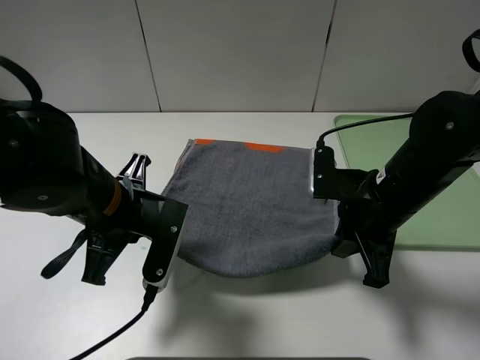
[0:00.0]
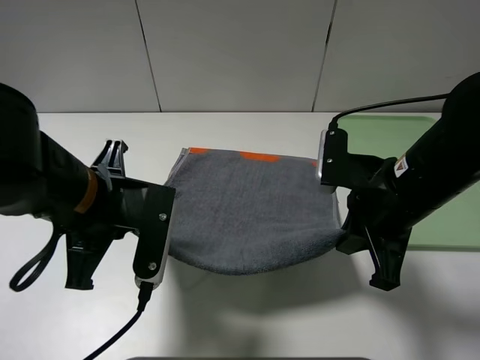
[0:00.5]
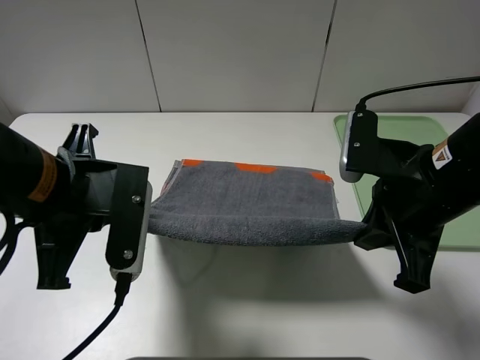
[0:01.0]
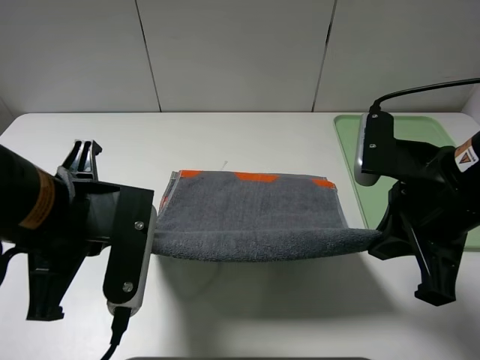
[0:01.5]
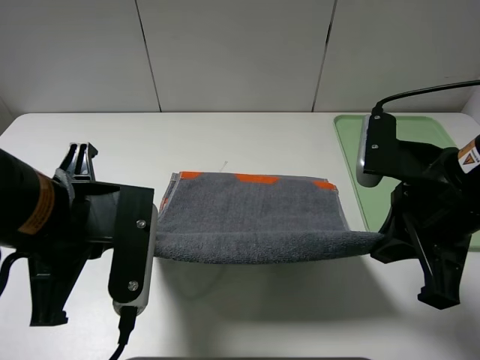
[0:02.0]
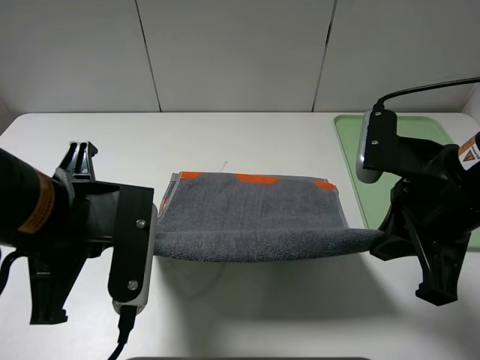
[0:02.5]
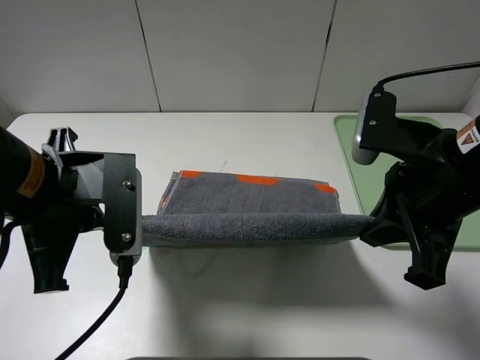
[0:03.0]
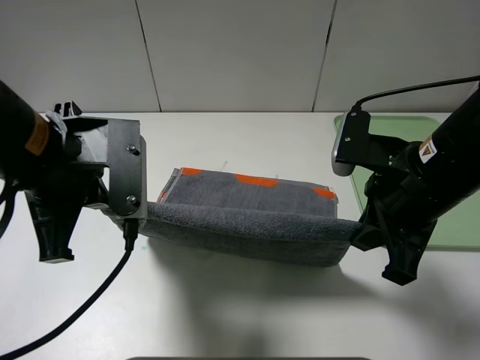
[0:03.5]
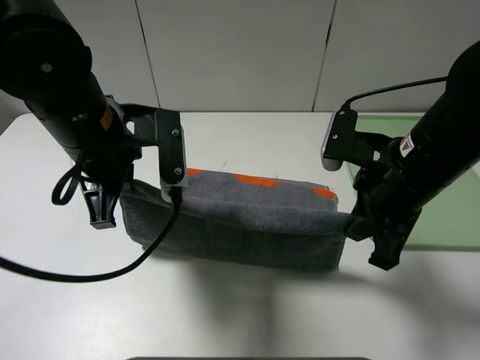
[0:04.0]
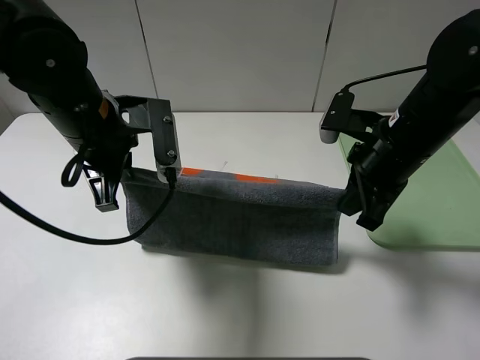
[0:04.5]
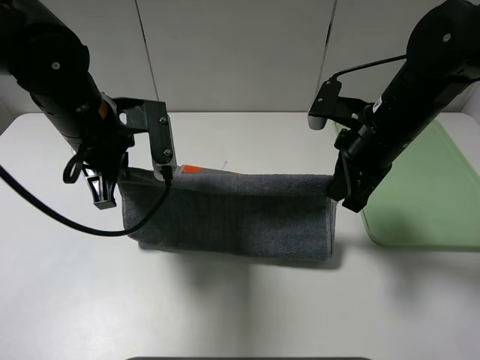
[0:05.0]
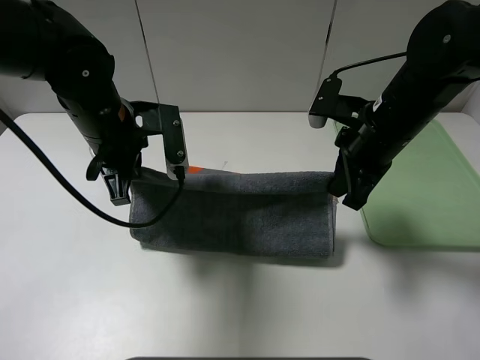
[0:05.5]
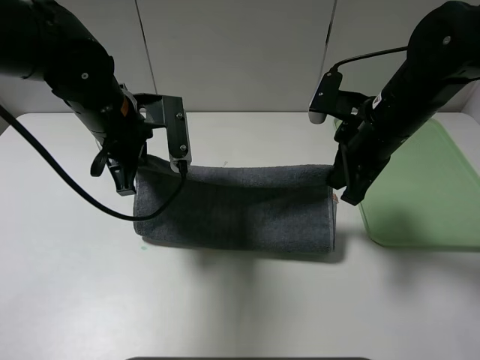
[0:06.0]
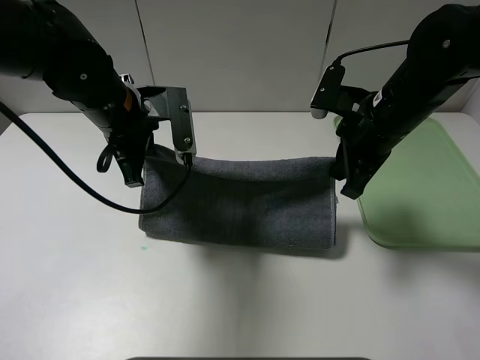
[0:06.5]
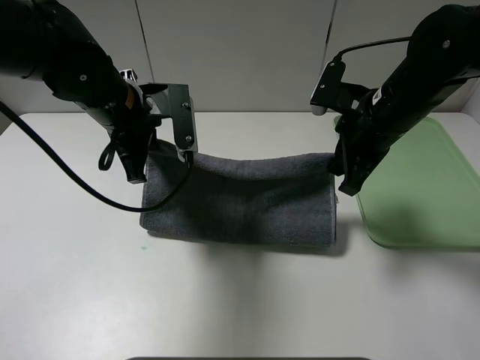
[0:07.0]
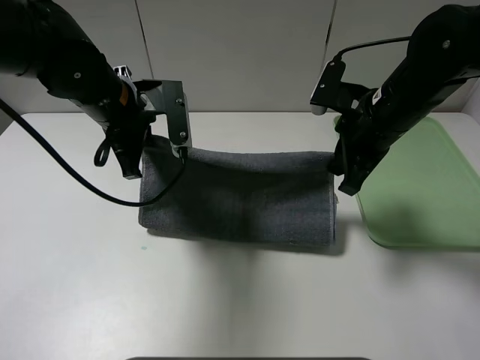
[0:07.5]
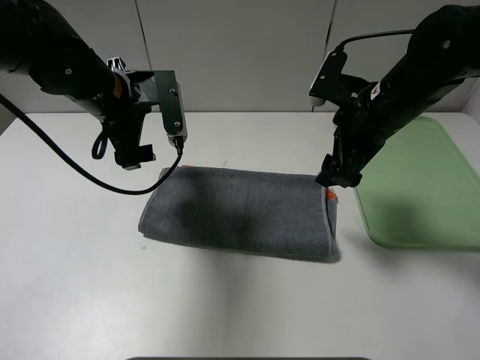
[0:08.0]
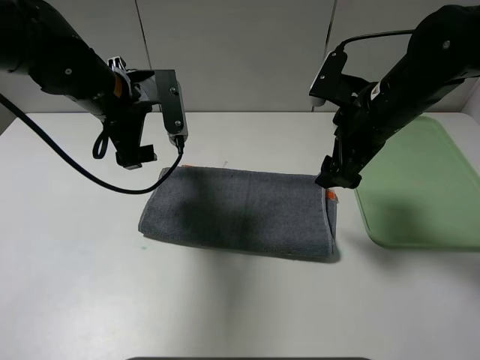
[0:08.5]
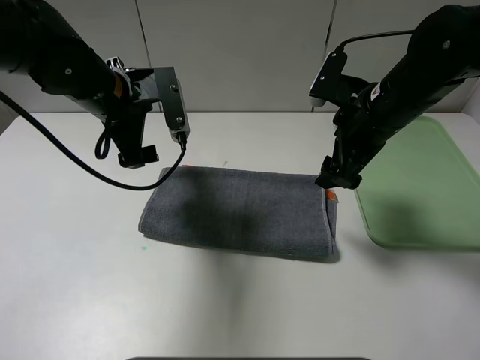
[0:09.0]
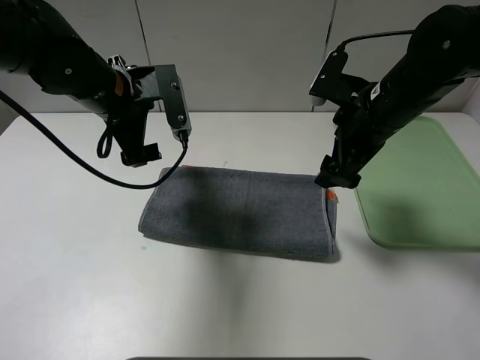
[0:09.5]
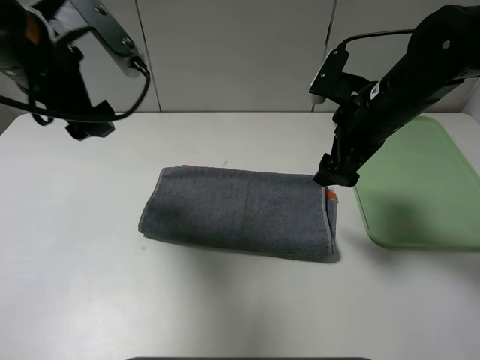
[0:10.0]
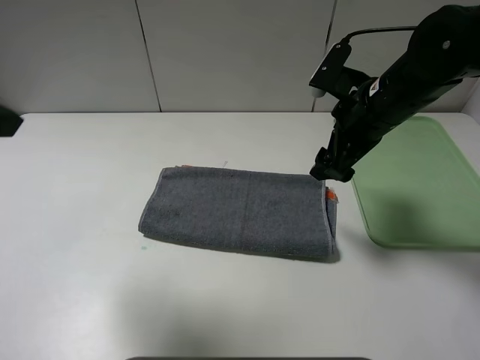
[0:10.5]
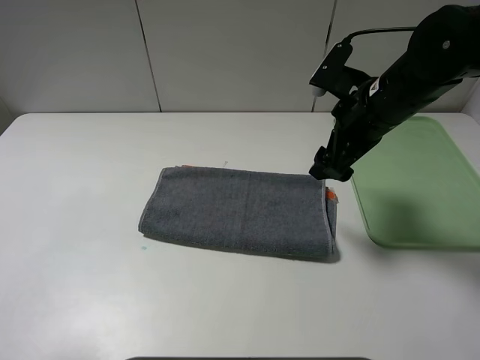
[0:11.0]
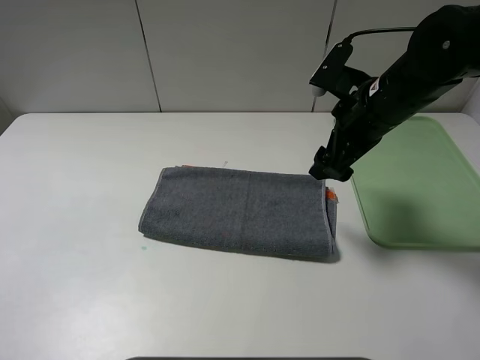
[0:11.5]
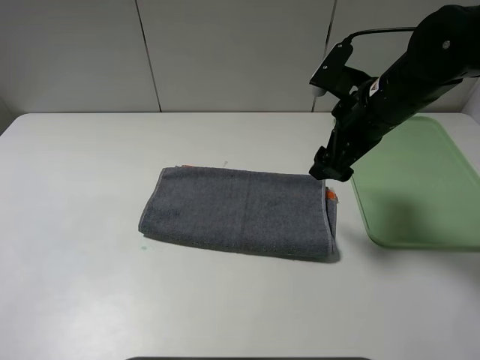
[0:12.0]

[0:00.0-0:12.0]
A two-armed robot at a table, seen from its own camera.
Step, 0:00.0 to 0:07.5: Fold the grey towel upwards.
0:00.0 to 0:02.0: The grippers both shift upward and backward by approximately 10 cm.
0:02.0 to 0:04.0: The right gripper is displaced forward by roughly 5 cm, while the left gripper goes approximately 10 cm forward.
0:04.0 to 0:06.0: Both grippers move forward, roughly 5 cm.
0:06.0 to 0:08.0: The right gripper opens its fingers. Meanwhile the left gripper opens up.
0:08.0 to 0:10.0: The left gripper goes about 10 cm upward and backward.
0:10.0 to 0:12.0: The left gripper shifts roughly 30 cm backward and to the left.

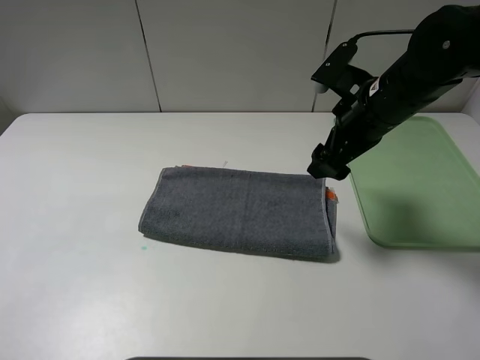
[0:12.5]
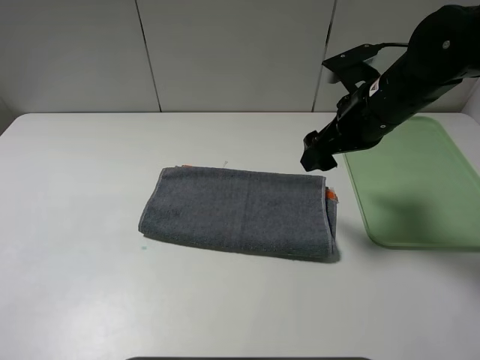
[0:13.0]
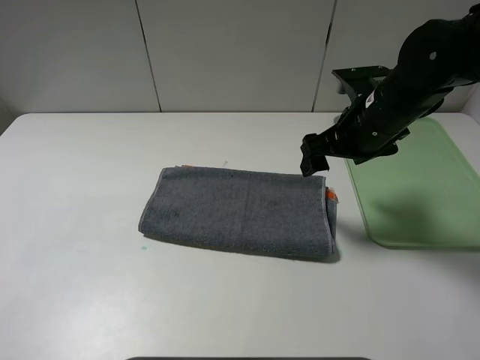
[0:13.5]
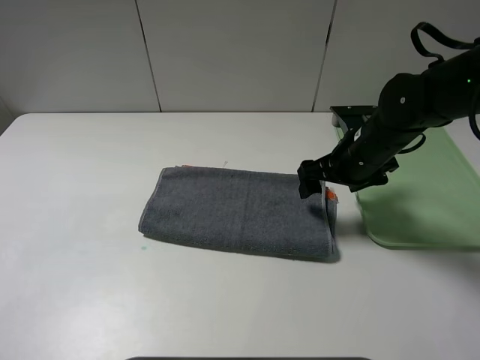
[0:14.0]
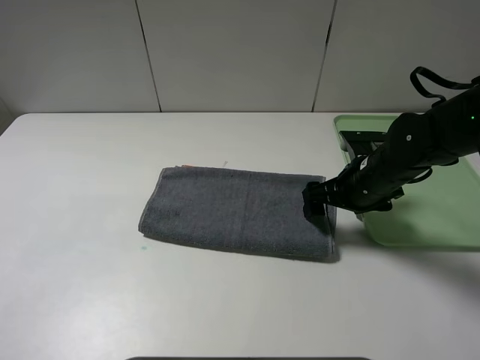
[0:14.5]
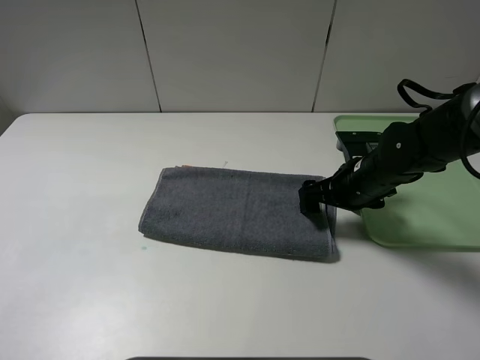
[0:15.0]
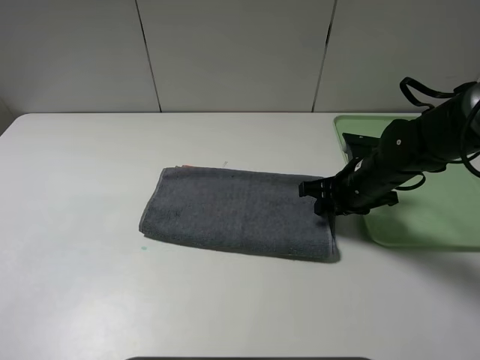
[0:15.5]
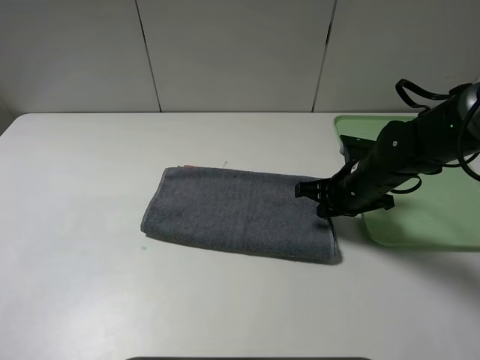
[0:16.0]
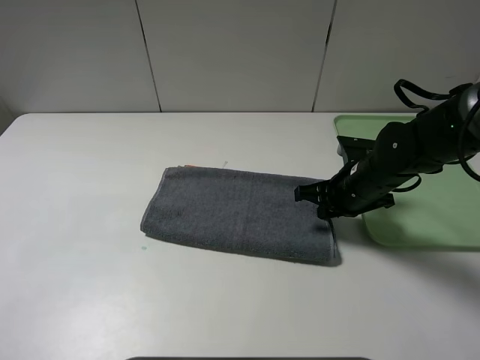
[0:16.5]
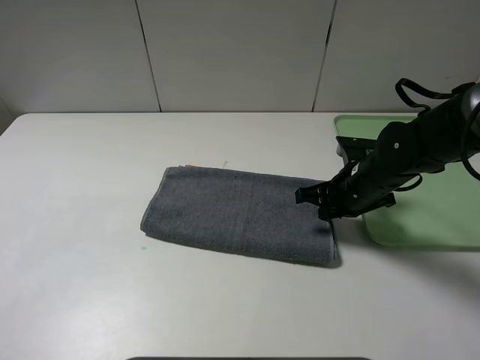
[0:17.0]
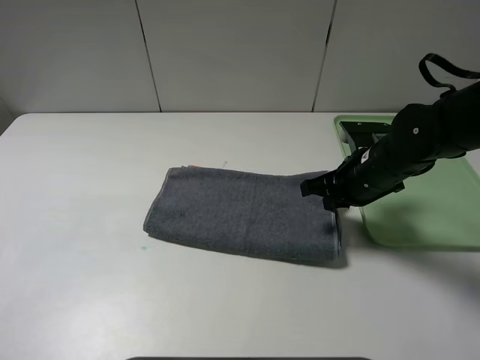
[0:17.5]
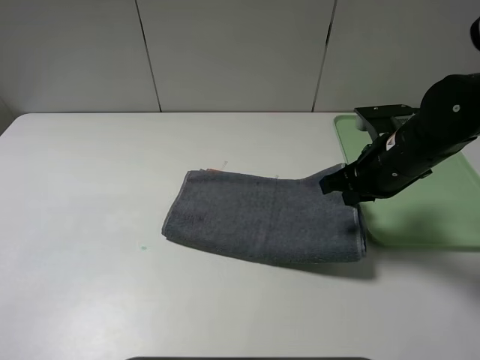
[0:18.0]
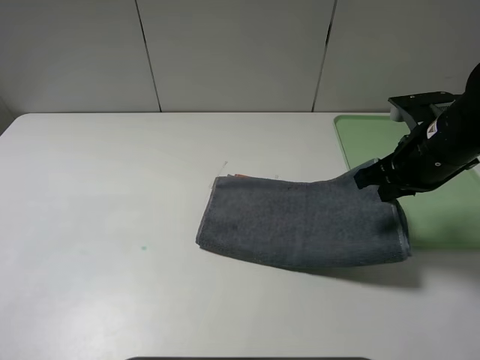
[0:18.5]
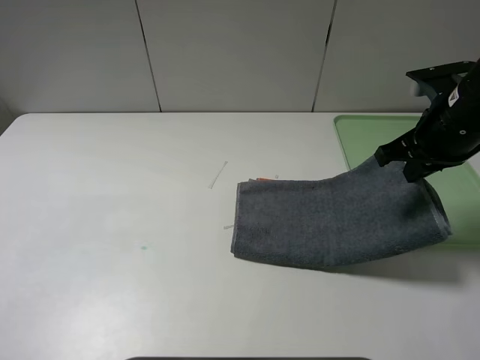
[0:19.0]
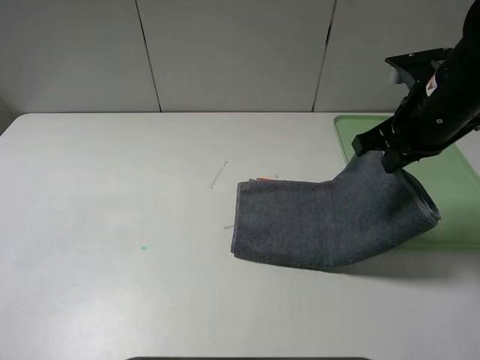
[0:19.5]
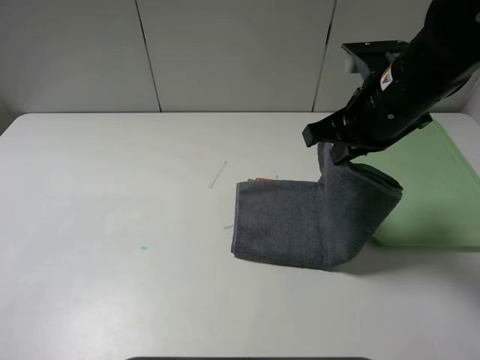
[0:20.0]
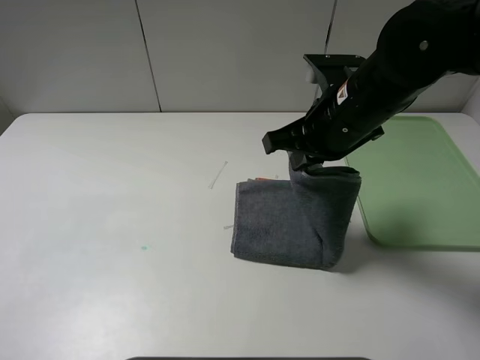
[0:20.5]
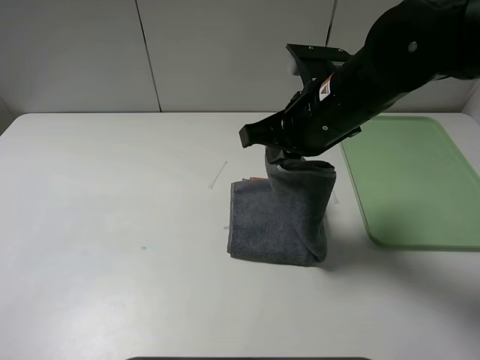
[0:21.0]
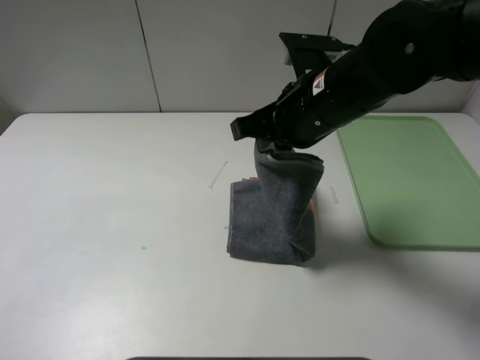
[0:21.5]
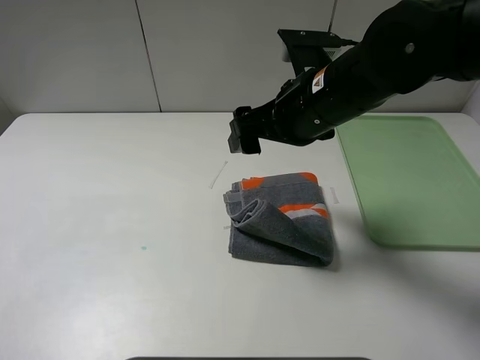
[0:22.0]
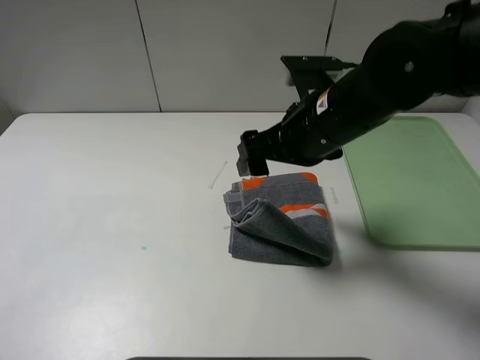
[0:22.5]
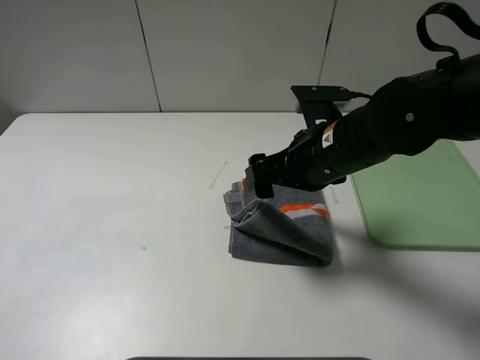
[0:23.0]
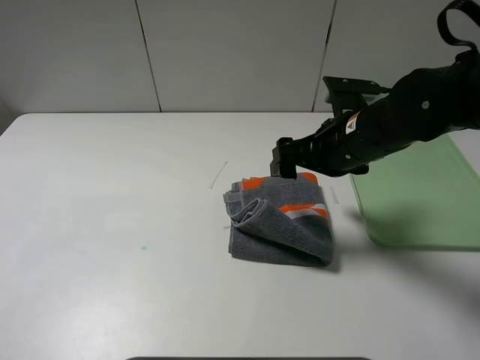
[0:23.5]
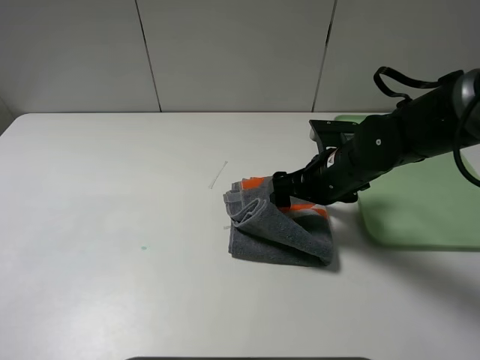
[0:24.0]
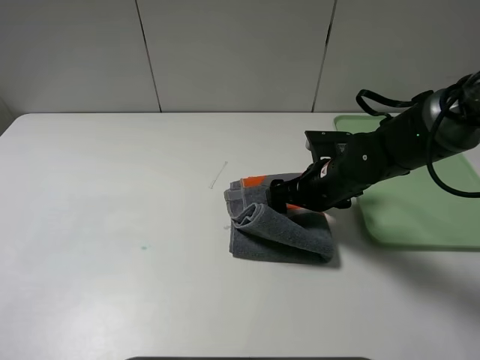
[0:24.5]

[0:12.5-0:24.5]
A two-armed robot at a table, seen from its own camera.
Step, 0:12.5 to 0:21.5: Fold the grey towel from right to left with right gripper.
0:12.5 to 0:14.5: The right gripper moves downward, roughly 10 cm.
0:14.5 to 0:16.5: The right gripper closes.
0:16.5 to 0:18.5: The right gripper travels upward and to the right by about 10 cm.
0:18.5 to 0:20.5: The right gripper moves to the left, approximately 10 cm.
0:20.5 to 0:22.5: The right gripper opens.
0:22.5 to 0:24.5: The right gripper moves downward, some 10 cm.

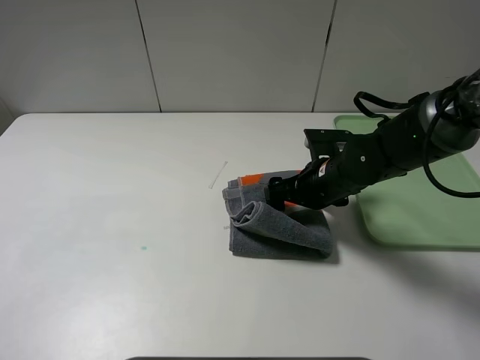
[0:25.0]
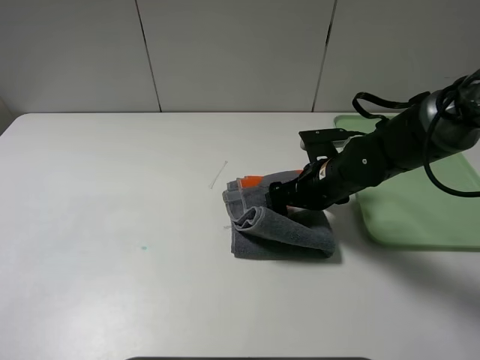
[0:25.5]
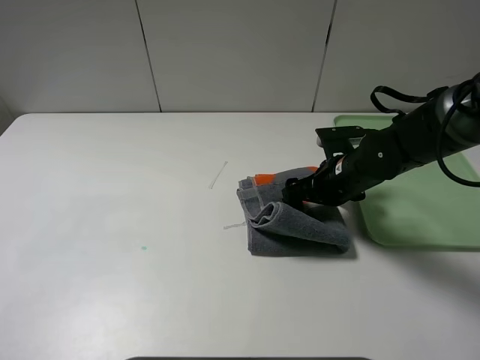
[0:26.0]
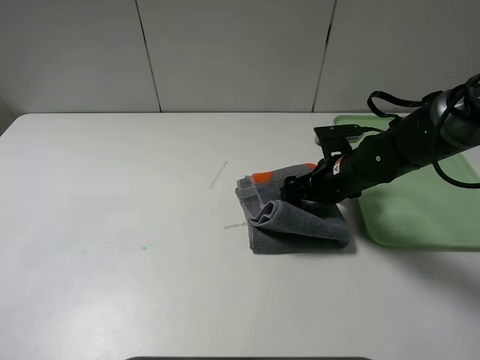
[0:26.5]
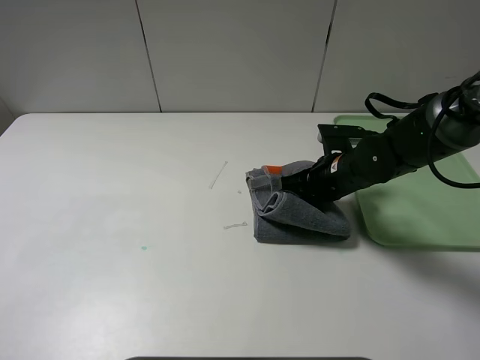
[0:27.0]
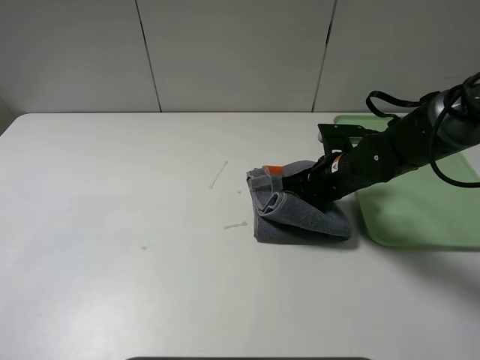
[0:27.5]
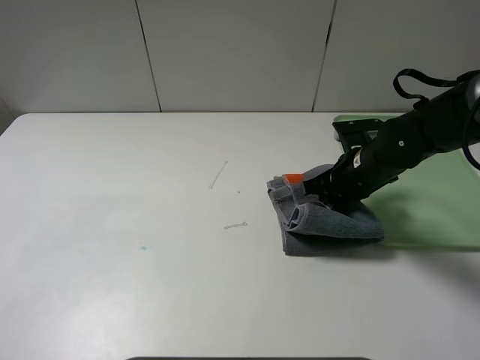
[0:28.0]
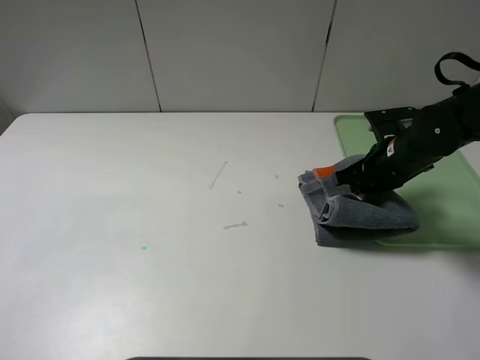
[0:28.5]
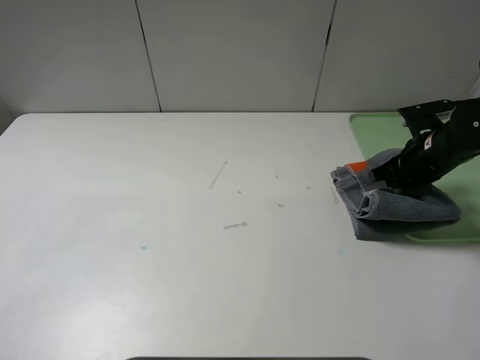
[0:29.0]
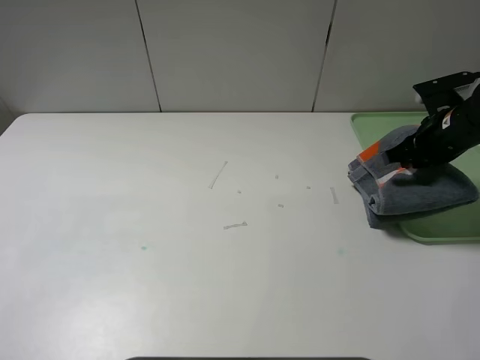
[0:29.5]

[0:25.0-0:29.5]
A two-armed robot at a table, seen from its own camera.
0:25.0 to 0:27.0: The right gripper closes.
0:27.0 to 0:29.5: The right gripper moves to the right and upward, some 15 cm.
